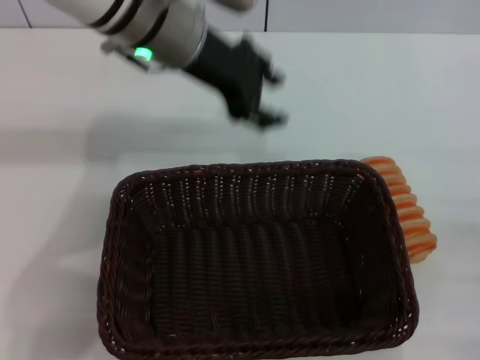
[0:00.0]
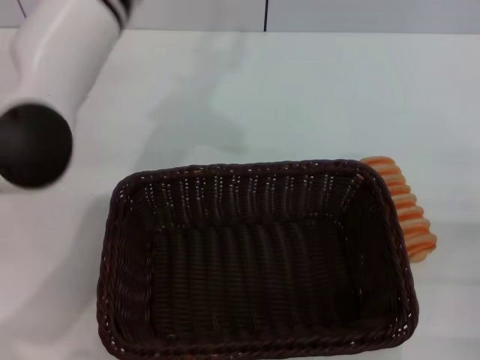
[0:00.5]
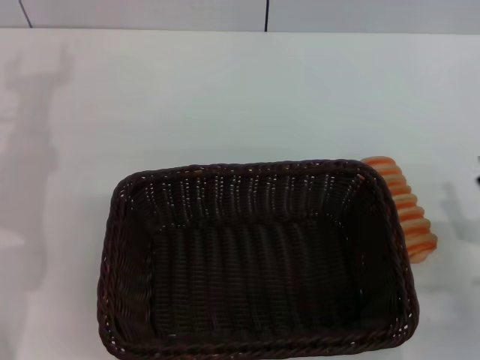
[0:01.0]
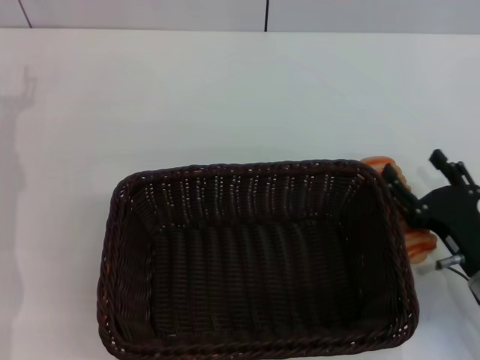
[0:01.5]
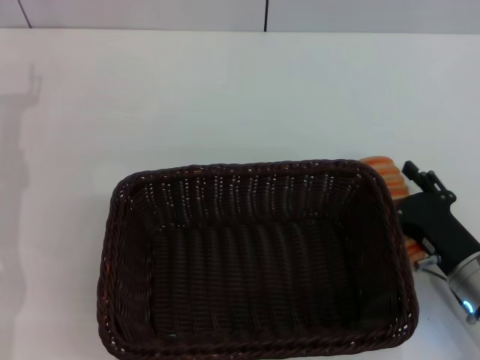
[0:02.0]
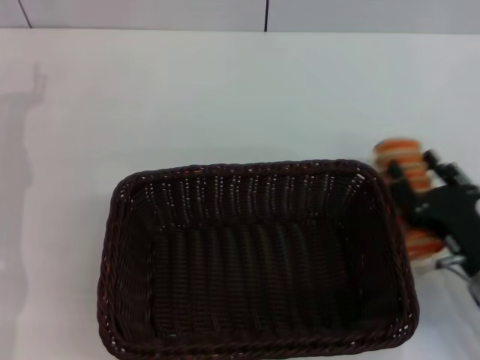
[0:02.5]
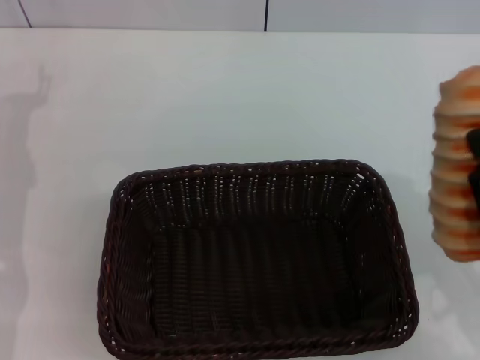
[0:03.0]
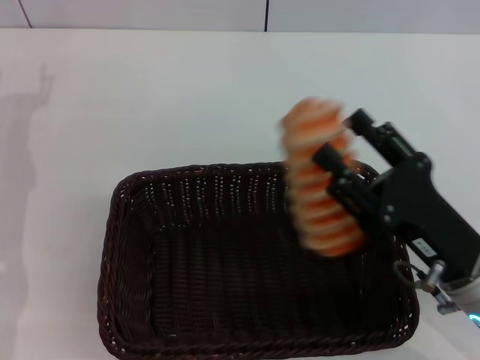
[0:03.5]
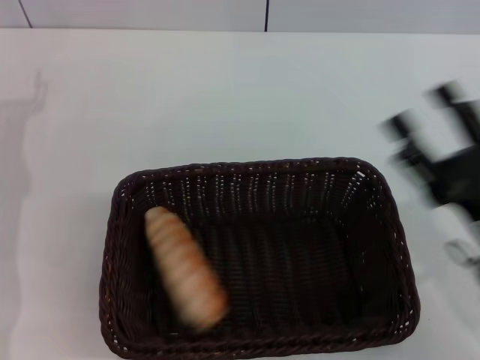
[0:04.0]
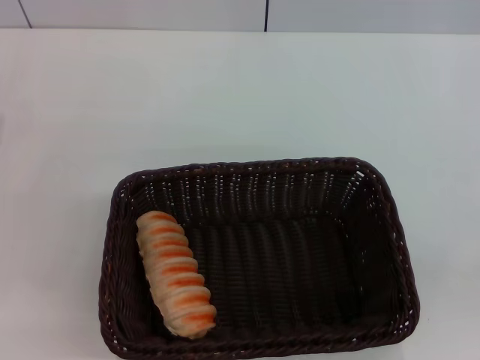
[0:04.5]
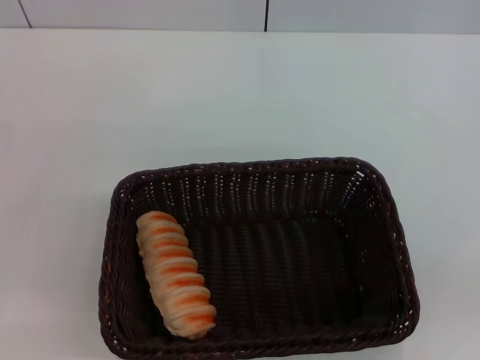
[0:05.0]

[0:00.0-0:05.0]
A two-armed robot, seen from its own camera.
Step, 0:00.5 to 0:02.5: Pick up the long bread with the right gripper.
Step, 0:03.0 to 0:03.5: Place the long bread into the dark basket with the right gripper.
0:00.0 to 0:02.5: The left gripper heads to the left and downward, covering approximately 25 cm, and opens up. Meanwhile the right gripper moves to the left, about 10 cm, and closes.
0:02.5 to 0:05.0: The right gripper is displaced to the right and backward by approximately 20 cm, and opens, while the left gripper travels backward and downward by approximately 10 cm.
